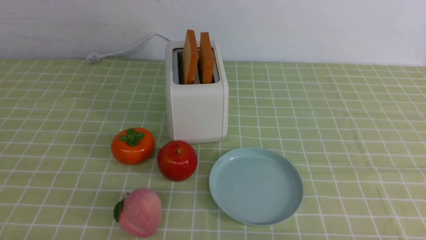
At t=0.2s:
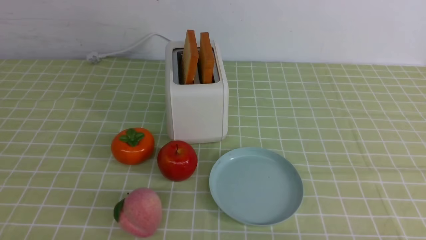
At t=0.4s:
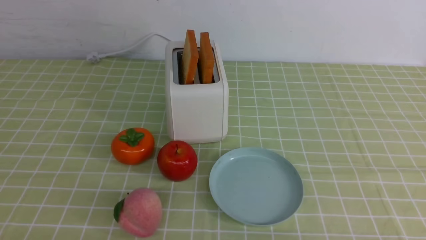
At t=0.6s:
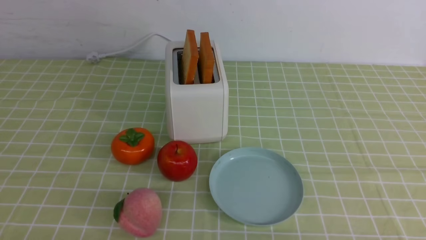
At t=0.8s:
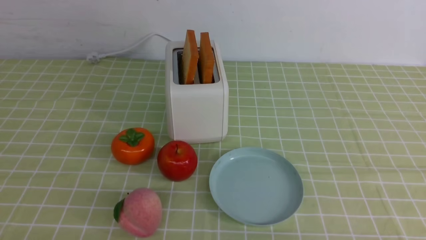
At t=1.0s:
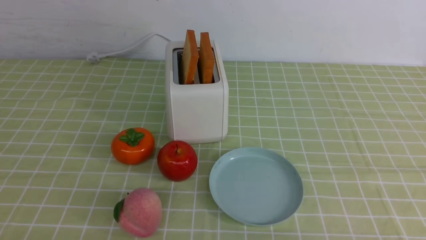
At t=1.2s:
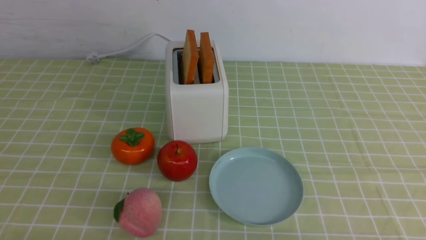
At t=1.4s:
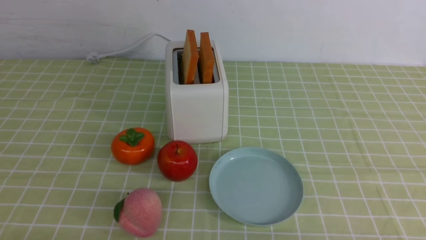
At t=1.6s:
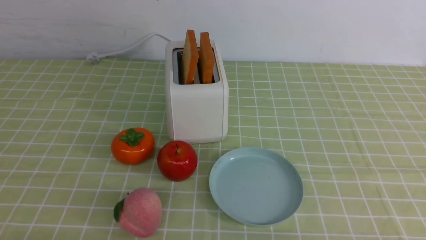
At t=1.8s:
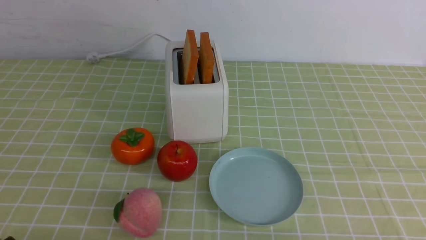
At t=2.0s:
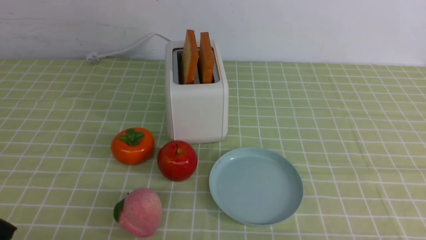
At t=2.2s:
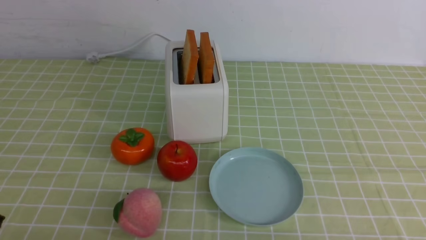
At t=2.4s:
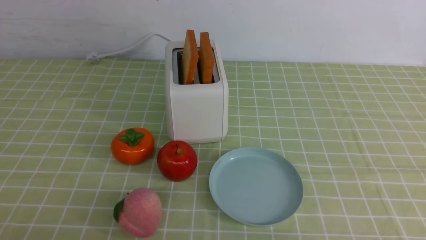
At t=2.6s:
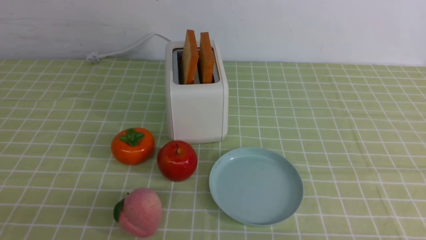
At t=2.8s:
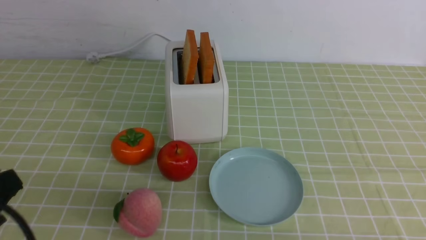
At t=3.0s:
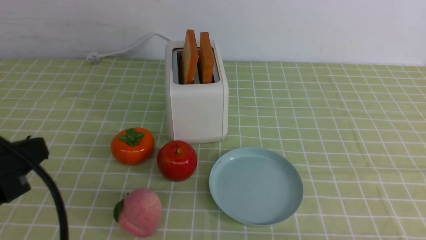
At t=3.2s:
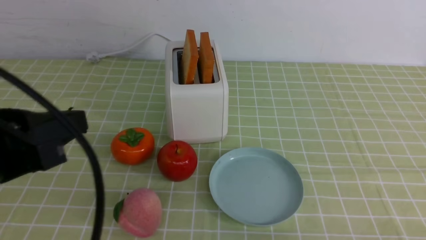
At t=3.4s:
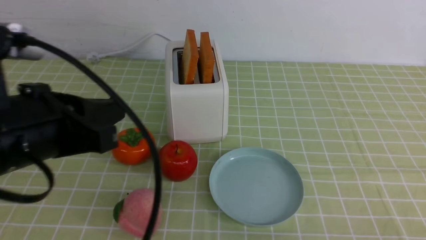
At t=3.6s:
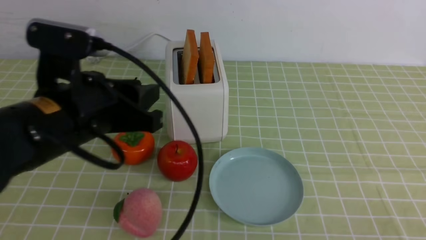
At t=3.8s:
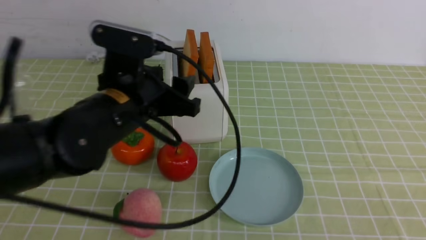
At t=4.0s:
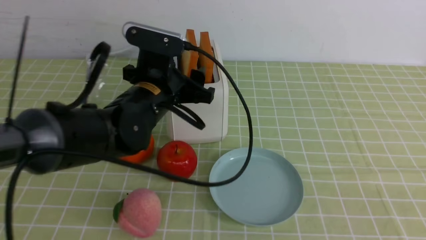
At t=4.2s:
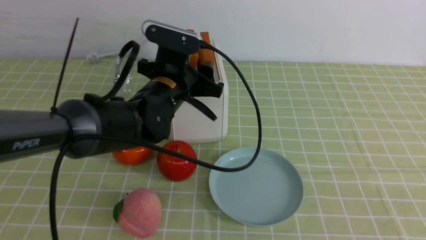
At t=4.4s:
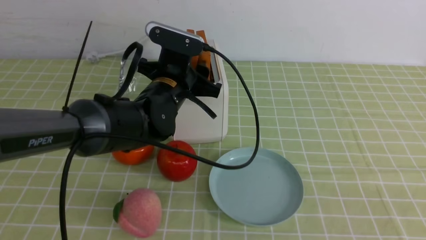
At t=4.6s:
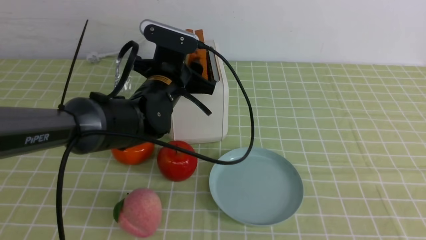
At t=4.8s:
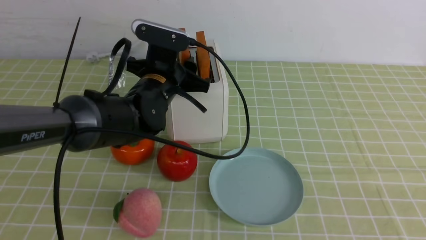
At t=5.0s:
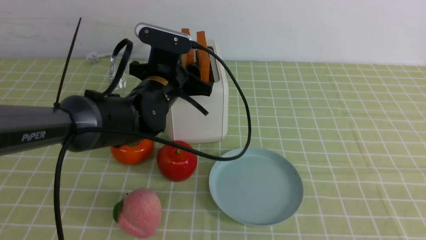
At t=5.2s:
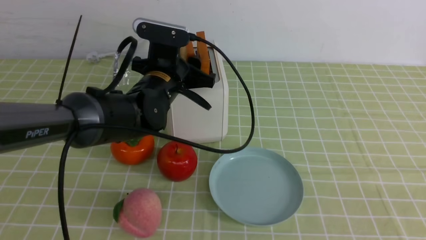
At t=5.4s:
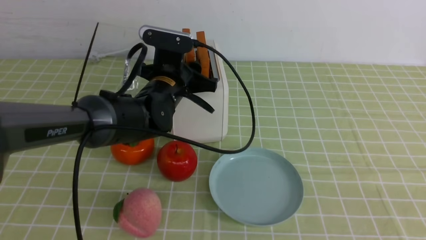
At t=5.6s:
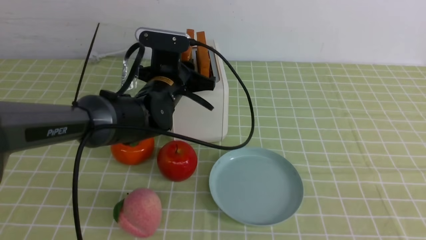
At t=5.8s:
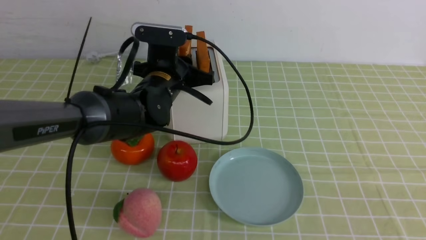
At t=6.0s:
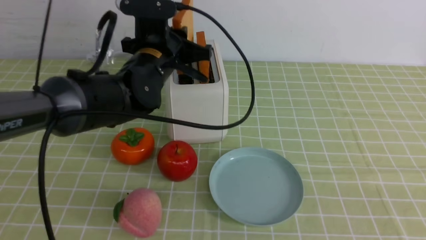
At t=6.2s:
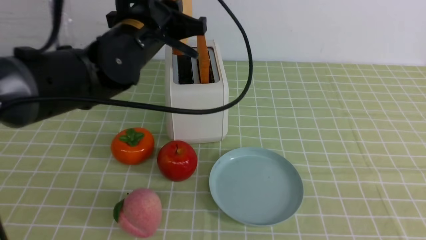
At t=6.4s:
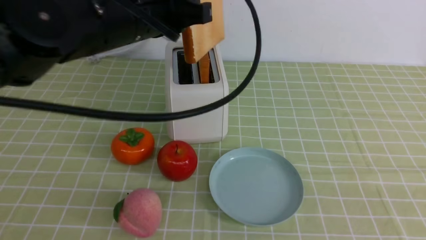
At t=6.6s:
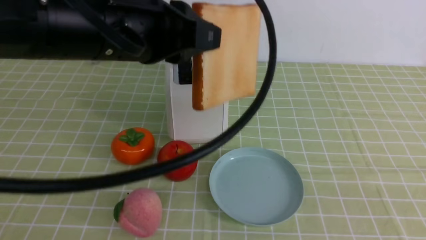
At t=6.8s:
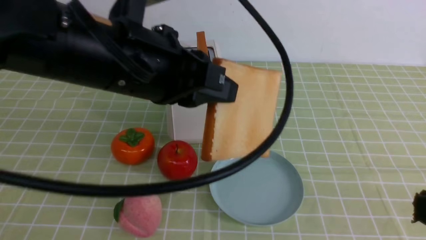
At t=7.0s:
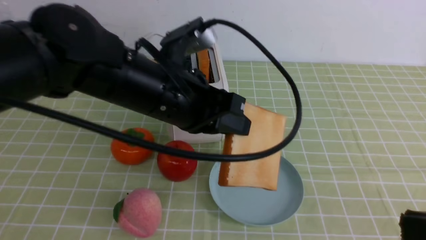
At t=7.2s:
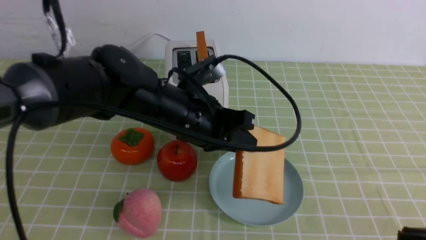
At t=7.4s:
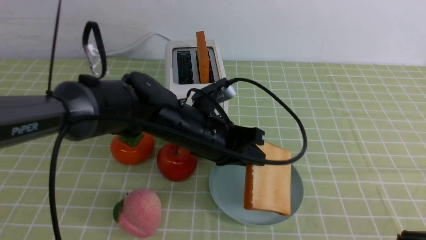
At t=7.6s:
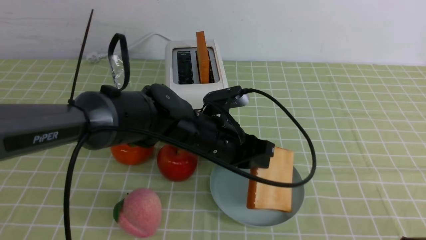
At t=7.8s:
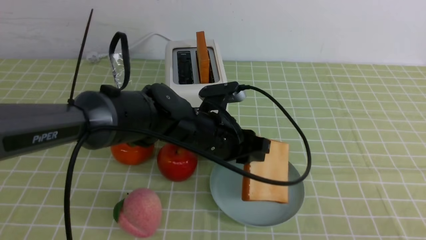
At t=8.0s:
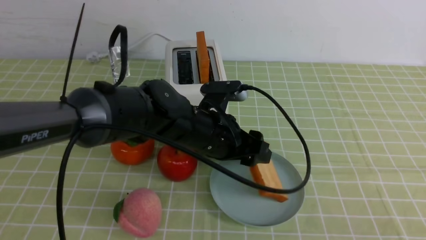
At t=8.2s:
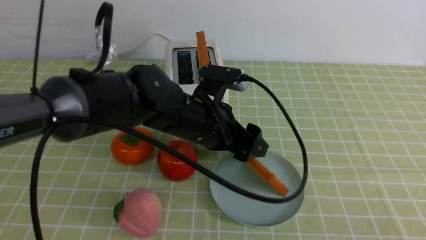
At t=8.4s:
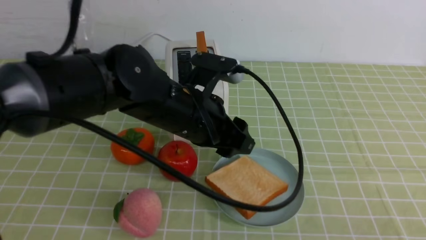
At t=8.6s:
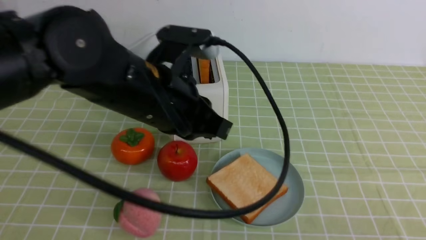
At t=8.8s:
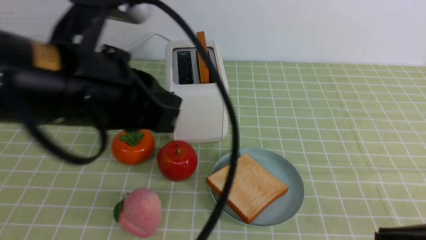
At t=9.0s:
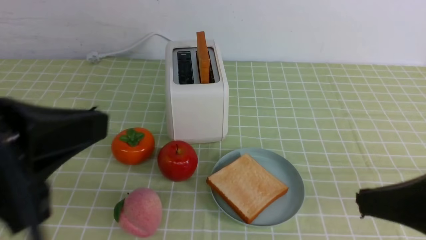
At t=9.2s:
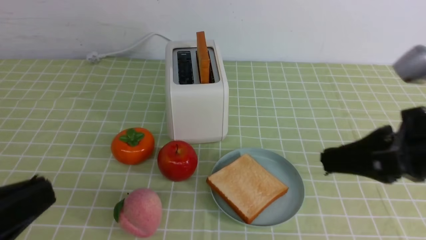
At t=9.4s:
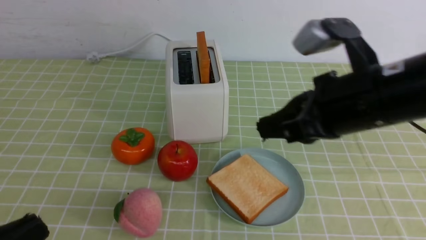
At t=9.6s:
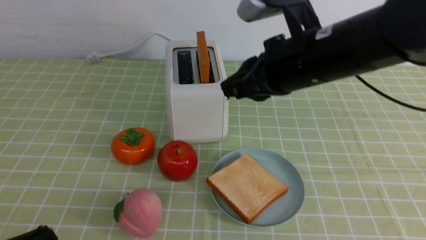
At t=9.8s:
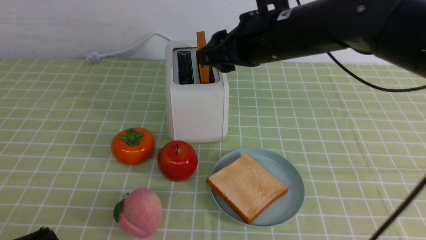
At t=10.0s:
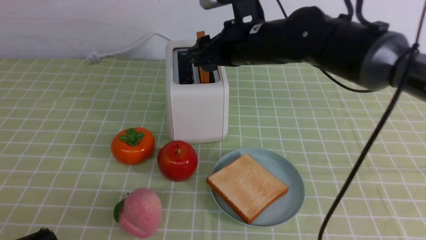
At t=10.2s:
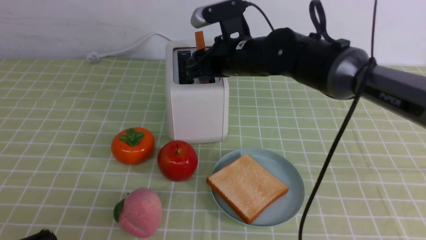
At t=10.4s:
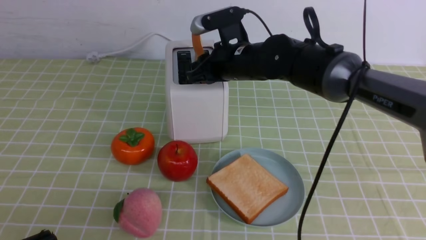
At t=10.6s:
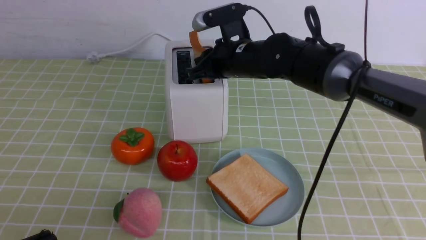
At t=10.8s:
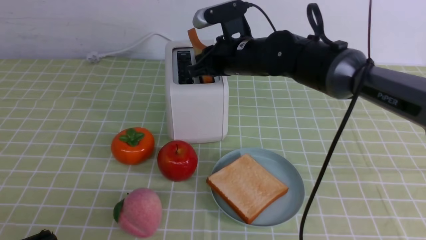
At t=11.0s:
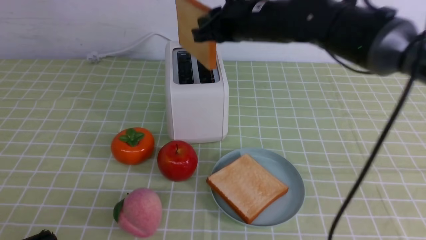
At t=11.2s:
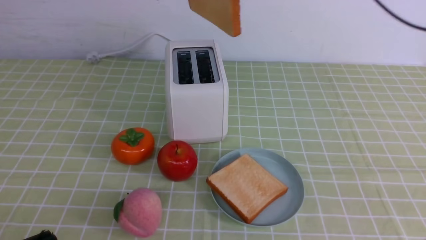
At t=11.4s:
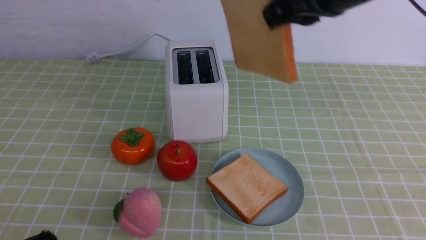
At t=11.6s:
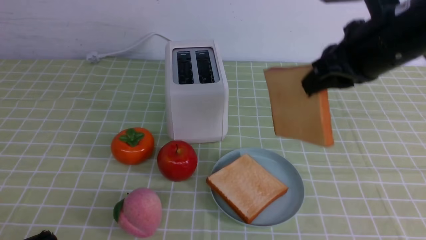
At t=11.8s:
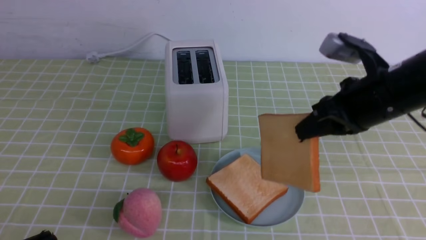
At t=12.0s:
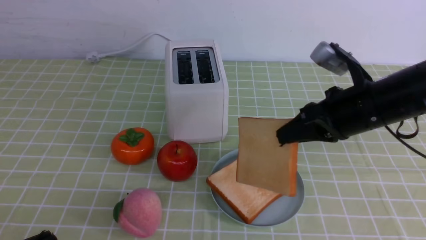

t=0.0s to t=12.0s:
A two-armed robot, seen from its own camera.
Task of the whole recording: take toasted bread from bread machine on green coffee tablecloth place on plate.
Step, t=0.0s to t=6.2s: use the left arm to take out a slice of bread.
Step, t=6.4s to t=8.4s: use the left arm to put a slice of bread into the empty plate.
Step, t=8.6s to t=11.0s: use the right arm to take out a slice of bread.
t=1.6s to t=3.0s: The left gripper is displaced upward by roughly 15 cm.
t=3.0s to t=4.4s: The left gripper goes about 30 cm forward and to the right, and opens; the right gripper travels upward by about 15 cm, and closes.
t=4.4s to t=6.0s: The left gripper heads upward, covering about 5 cm, and closes its fingers.
t=6.0s to t=7.6s: The left gripper heads downward, to the right and backward, covering about 15 cm.
t=7.6s to t=9.0s: The left gripper shifts roughly 30 cm backward, to the left and upward, and opens and closes again; the right gripper moves forward, approximately 10 cm.
t=9.0s to t=10.4s: The left gripper heads downward and backward, covering some 15 cm. Meanwhile the right gripper shifts about 35 cm forward and to the left, and opens.
t=10.4s to t=12.0s: The right gripper moves to the right and backward, about 20 cm, and travels upward and back again, approximately 15 cm each way.

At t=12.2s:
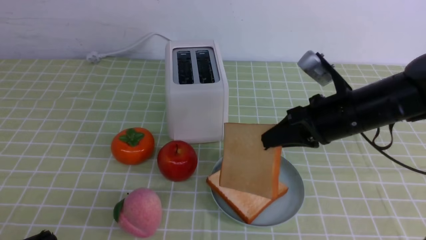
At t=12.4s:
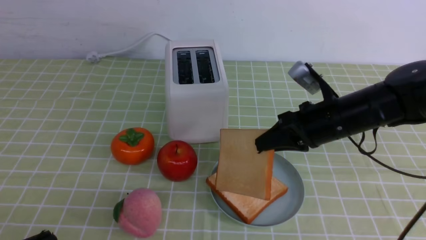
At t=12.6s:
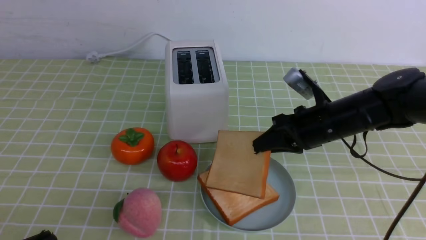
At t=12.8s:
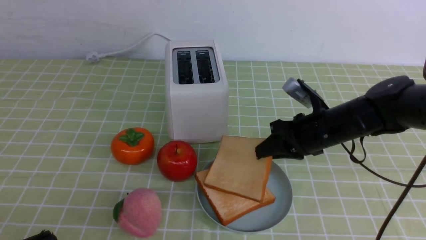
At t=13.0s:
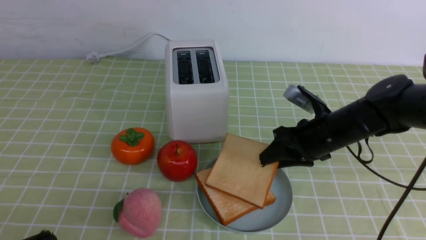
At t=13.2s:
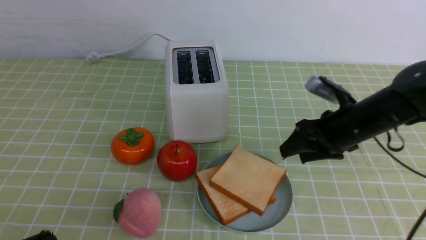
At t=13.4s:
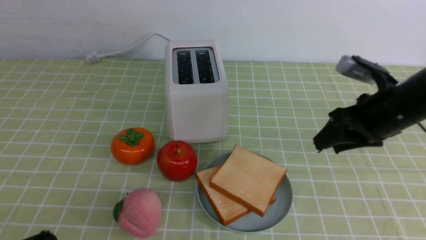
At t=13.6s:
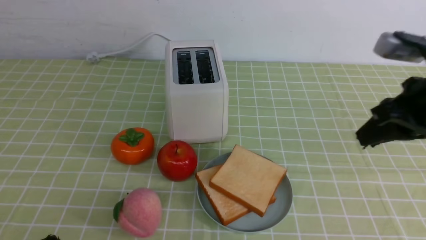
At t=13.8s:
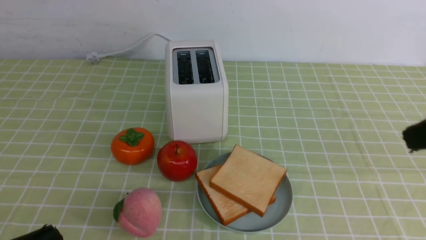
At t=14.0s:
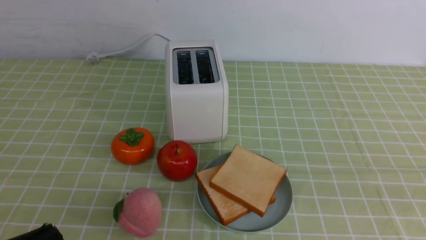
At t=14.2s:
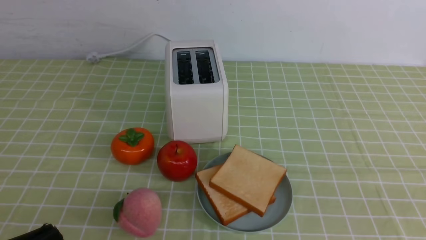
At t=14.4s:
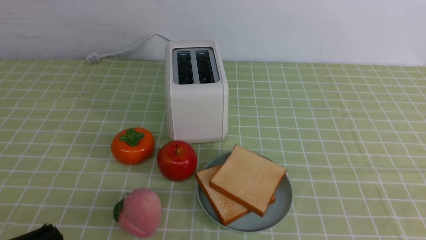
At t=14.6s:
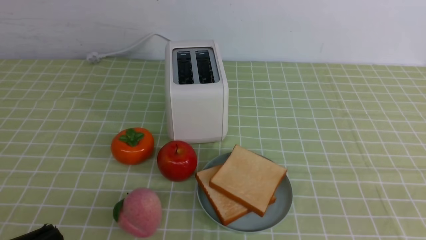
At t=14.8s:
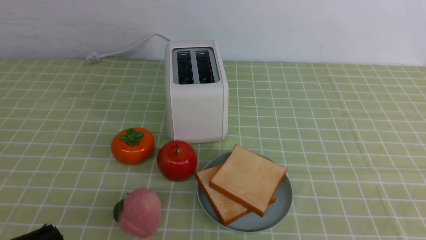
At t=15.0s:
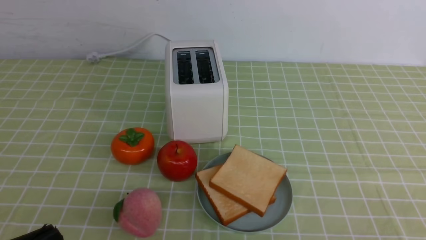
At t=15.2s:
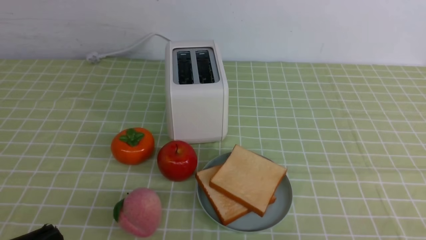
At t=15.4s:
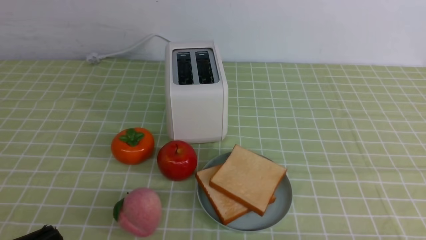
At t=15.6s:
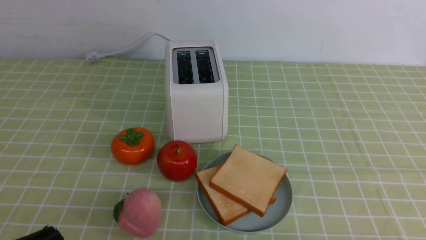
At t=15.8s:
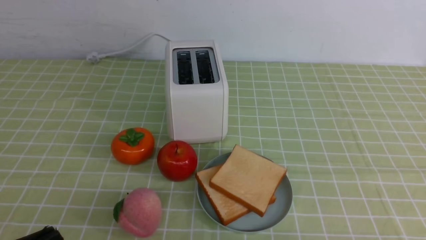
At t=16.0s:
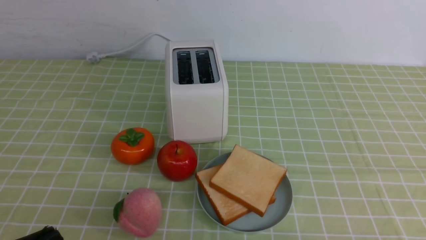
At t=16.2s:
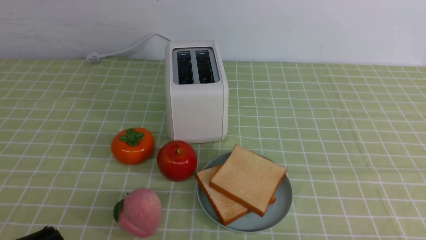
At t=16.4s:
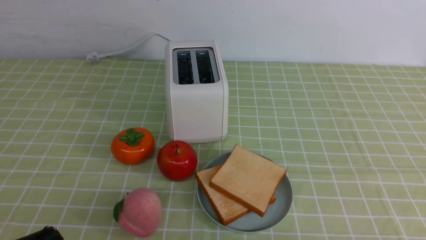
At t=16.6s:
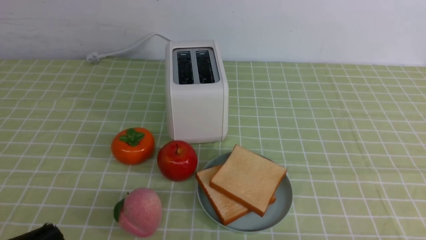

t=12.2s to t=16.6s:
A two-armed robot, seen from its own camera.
Task of the whole recording: take toasted bread from bread machine on green coffee tablecloth place on plate.
Step, t=12.2s to t=13.4s: use the right arm to put a slice of bread into the plate.
t=12.2s to t=13.6s: The right gripper heads upward, backward and to the right, covering roughly 15 cm, and opens, then closes once more.
t=13.6s to t=15.2s: The right gripper moves backward and downward, roughly 25 cm, and closes its fingers.
